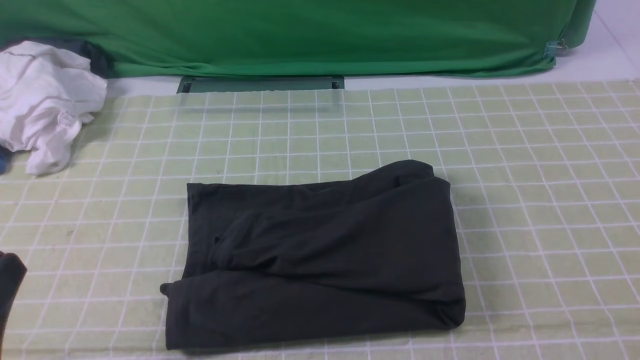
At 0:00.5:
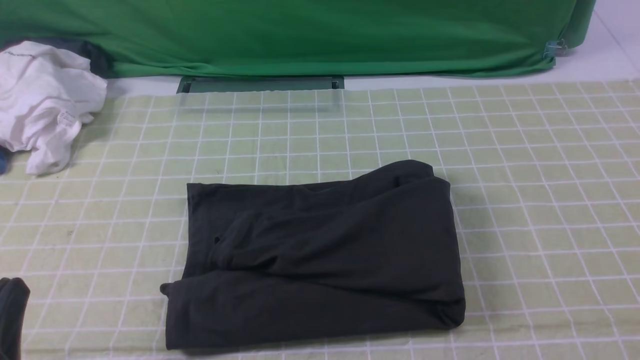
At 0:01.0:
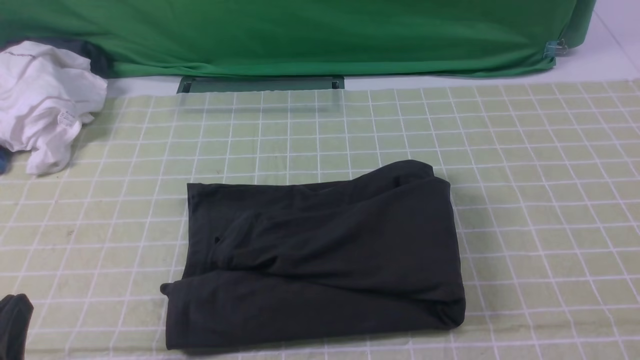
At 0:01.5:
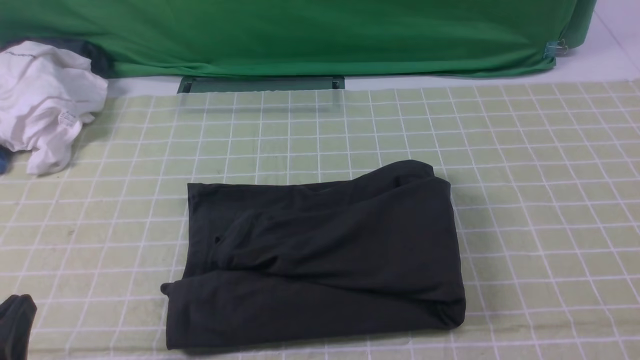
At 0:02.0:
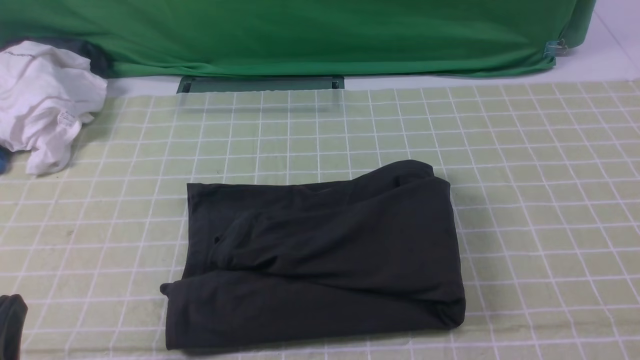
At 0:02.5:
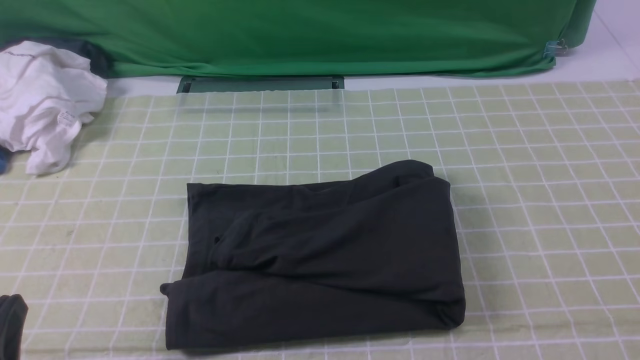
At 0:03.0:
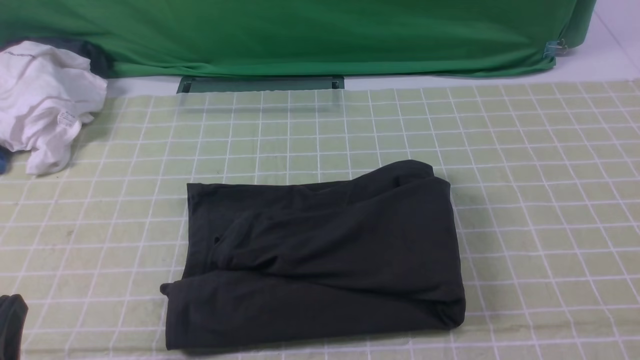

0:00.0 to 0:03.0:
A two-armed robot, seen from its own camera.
0:00.0 to 0:01.5: The left gripper travels downward by approximately 5 cm.
0:01.5 to 0:03.0: Neither gripper changes place.

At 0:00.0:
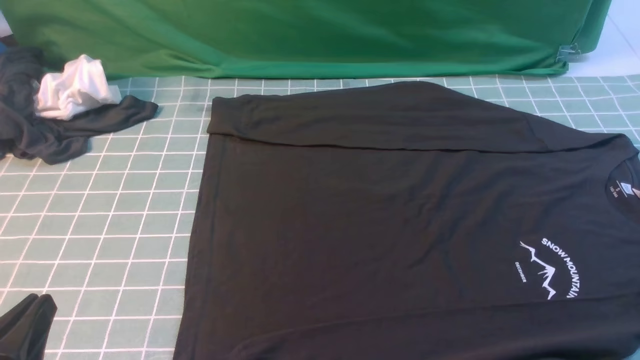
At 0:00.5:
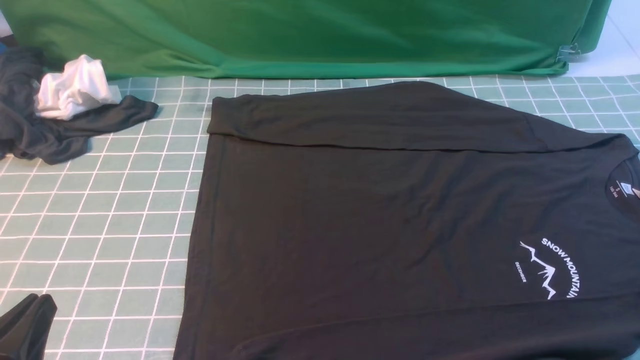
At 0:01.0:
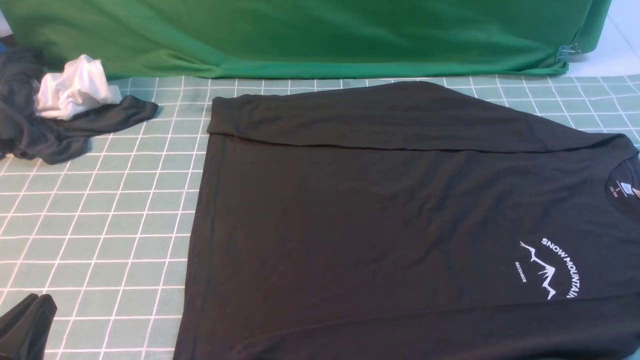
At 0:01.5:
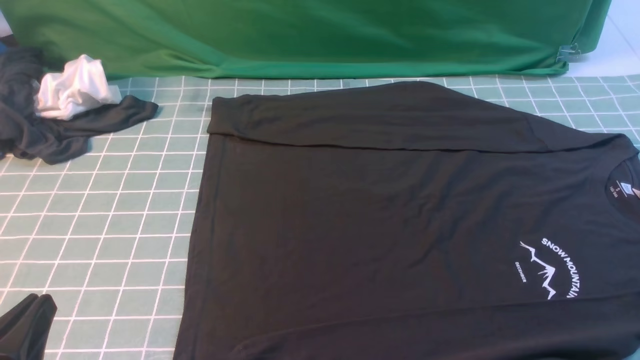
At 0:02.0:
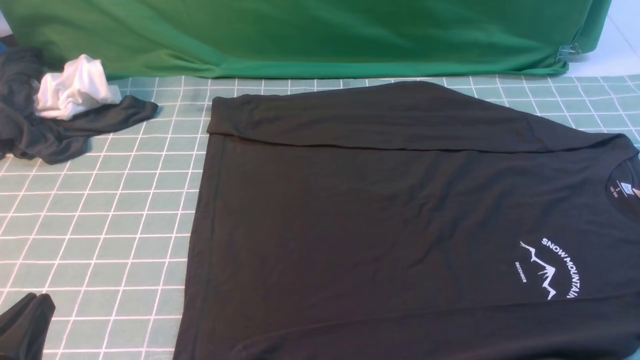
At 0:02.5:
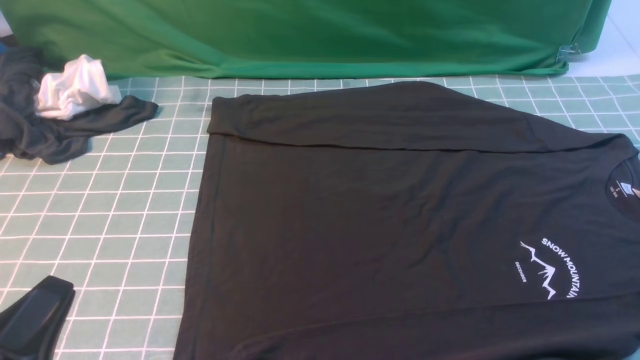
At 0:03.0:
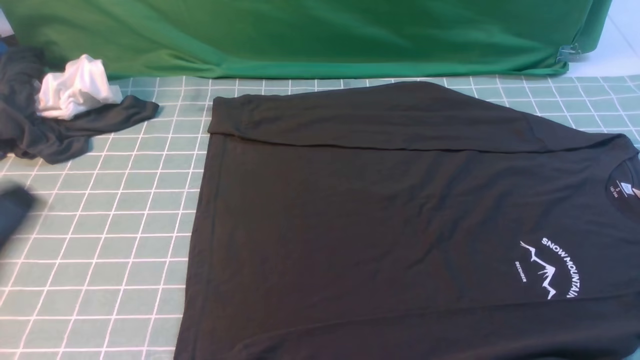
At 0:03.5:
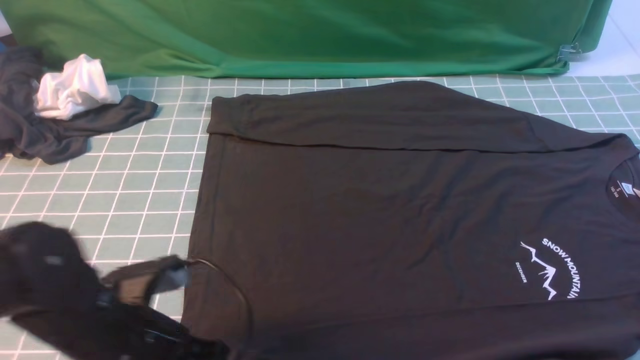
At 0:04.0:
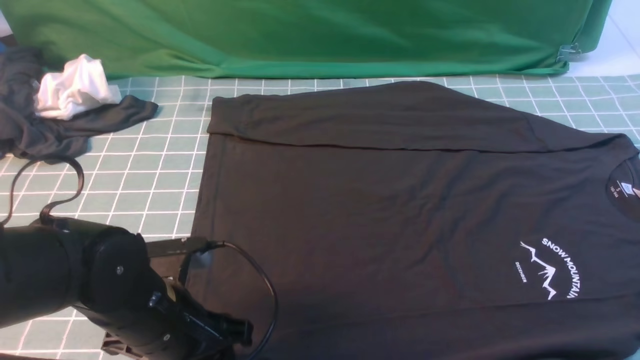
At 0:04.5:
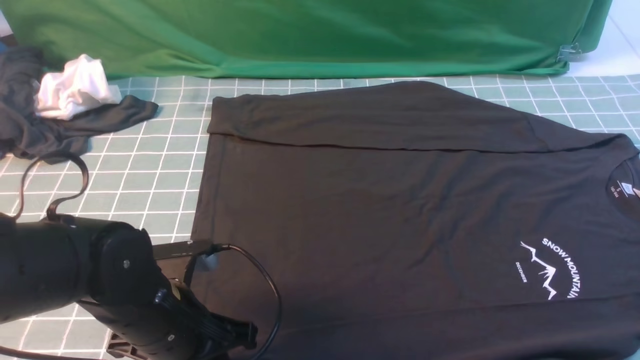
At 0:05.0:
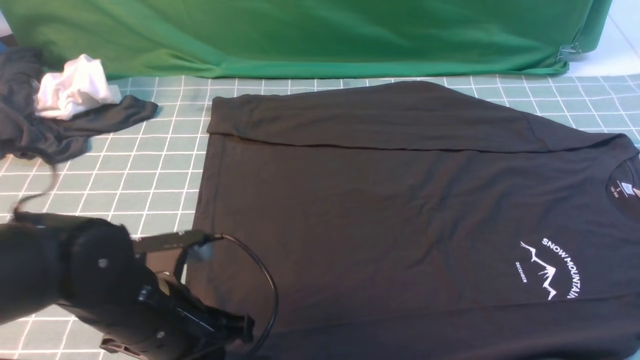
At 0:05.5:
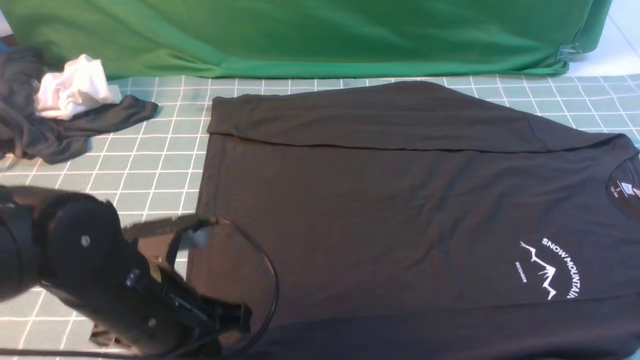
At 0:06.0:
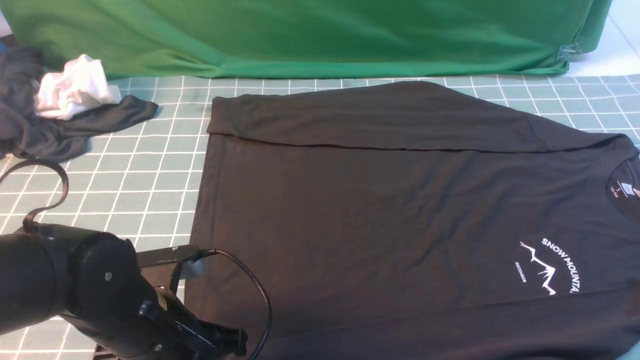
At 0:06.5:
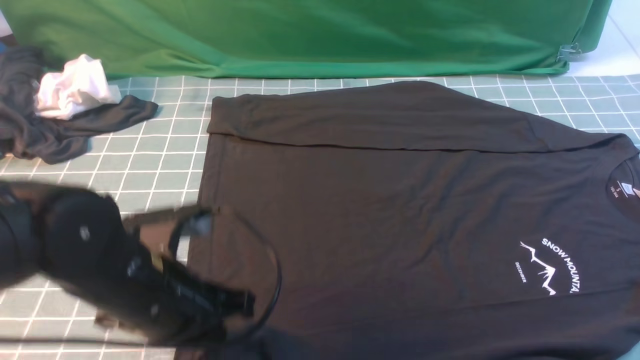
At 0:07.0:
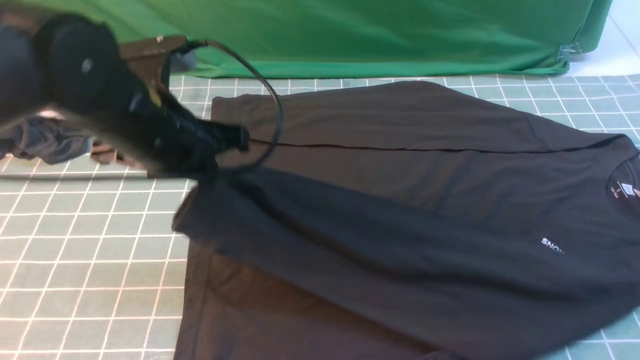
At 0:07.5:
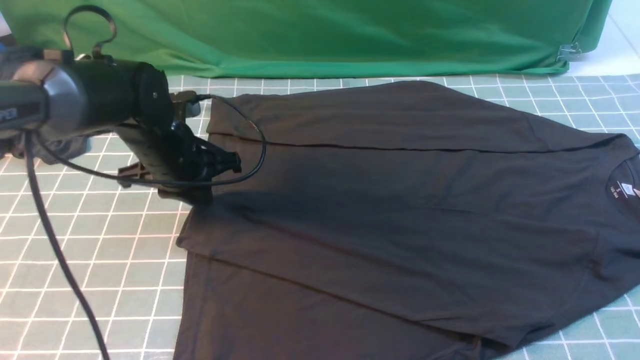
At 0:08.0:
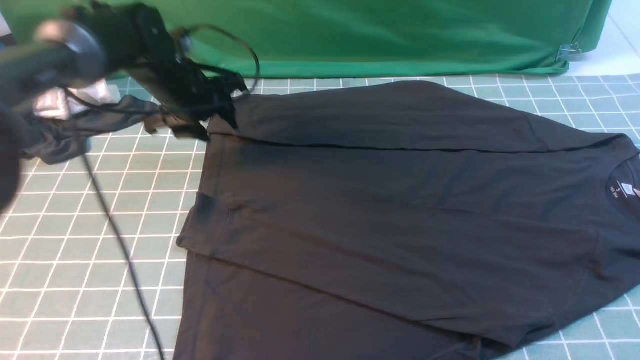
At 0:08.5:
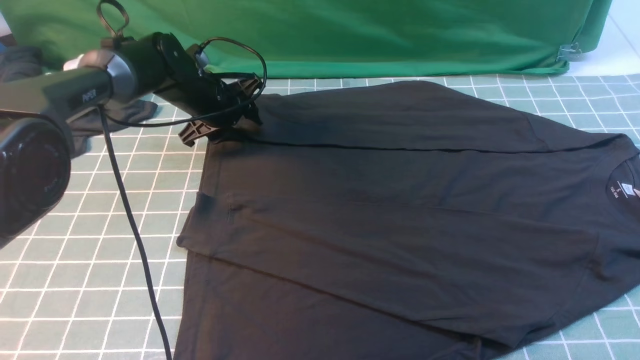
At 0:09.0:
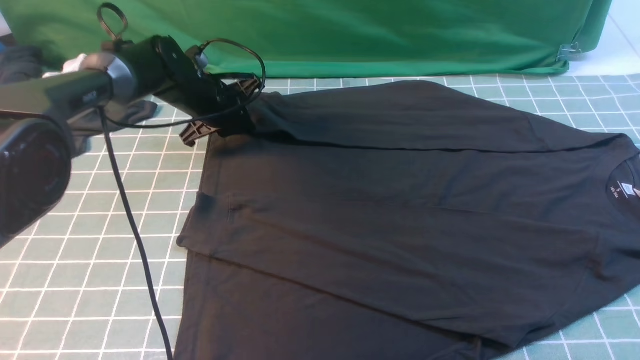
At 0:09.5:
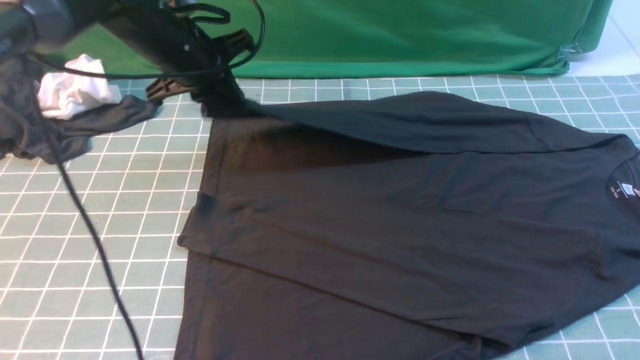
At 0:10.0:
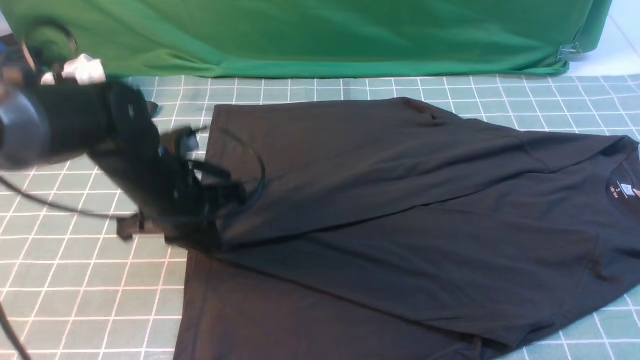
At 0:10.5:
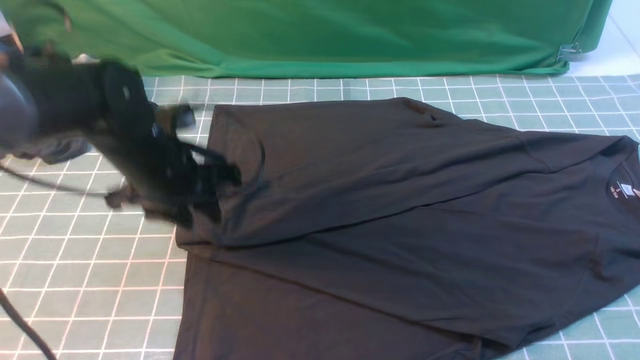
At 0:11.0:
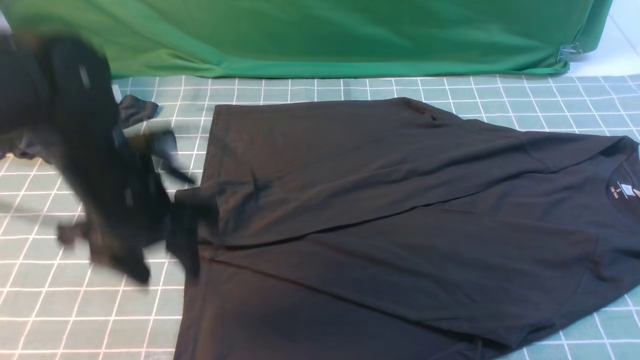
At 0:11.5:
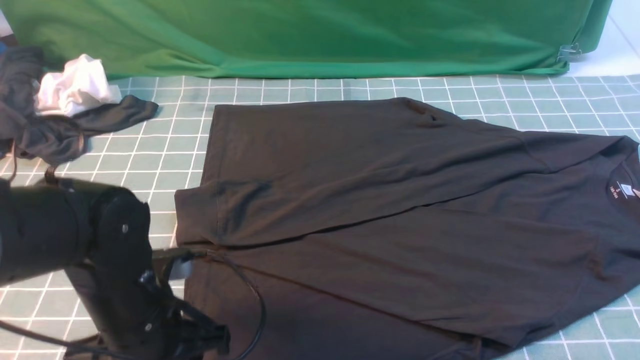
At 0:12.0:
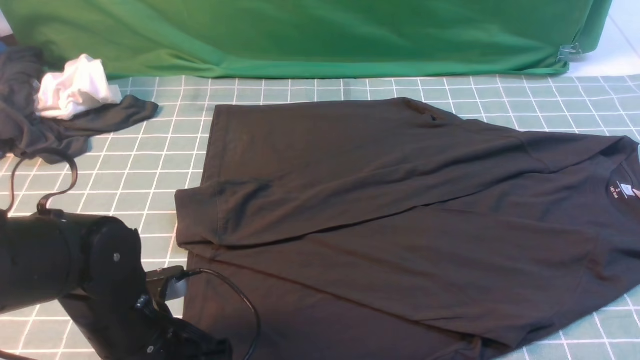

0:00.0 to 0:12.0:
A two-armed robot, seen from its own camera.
Step, 0:00.0 to 0:06.0: use the left arm to clamp the cuff closest to it.
Step, 0:06.5 to 0:07.5: use the left arm to drag and place the cuff at the centered position on the left edge of the fabric.
Step, 0:08.0 to 0:09.0: use the left arm to clamp the cuff farthest from it.
Step, 0:09.5 to 0:10.5: use the left arm to drag and drop the cuff onto the cuff closest to the left arm.
0:02.0 to 0:04.0: The left gripper goes approximately 15 cm forward and to the right, travels upward and back again, approximately 10 cm each way, and opens. The right gripper is displaced upward and forward by approximately 15 cm.
0:04.0 to 0:06.0: The left gripper closes up.
0:06.0 to 0:08.0: The left gripper goes approximately 30 cm forward, and opens up.
0:08.0 to 0:10.0: The left gripper is displaced backward by approximately 15 cm, and closes up.
0:10.0 to 0:12.0: The left gripper goes about 15 cm backward, and opens.

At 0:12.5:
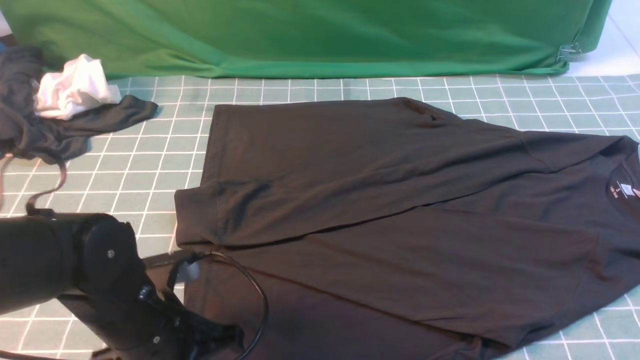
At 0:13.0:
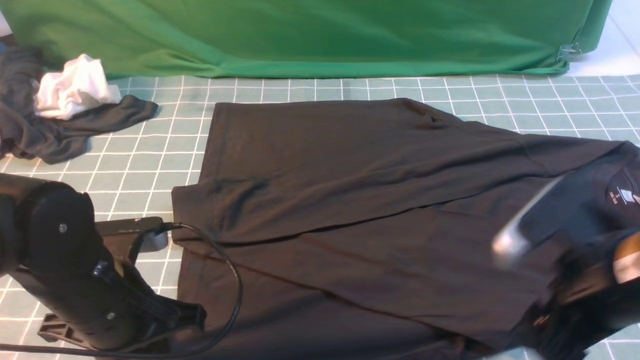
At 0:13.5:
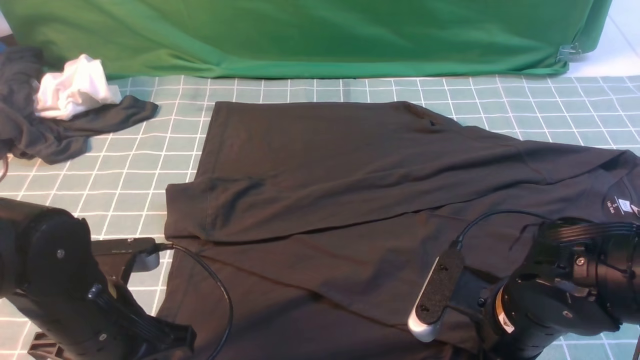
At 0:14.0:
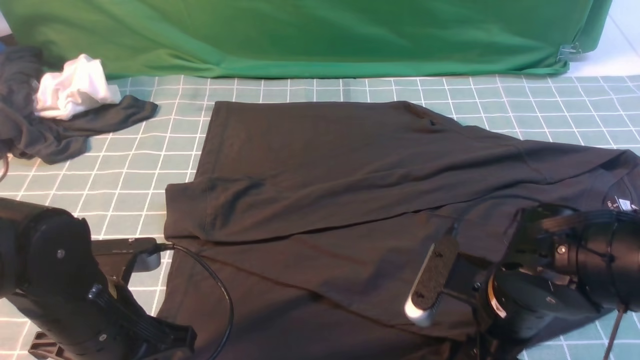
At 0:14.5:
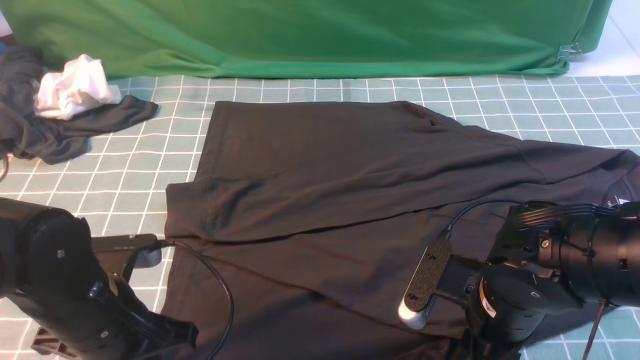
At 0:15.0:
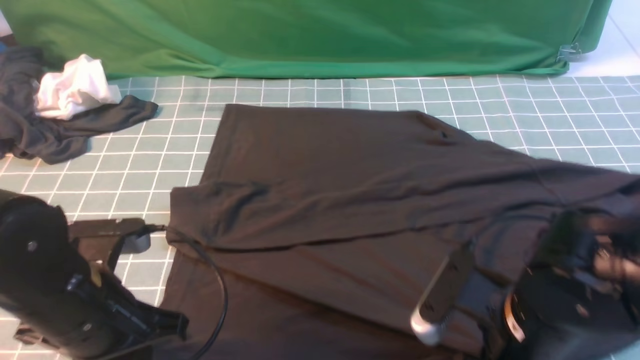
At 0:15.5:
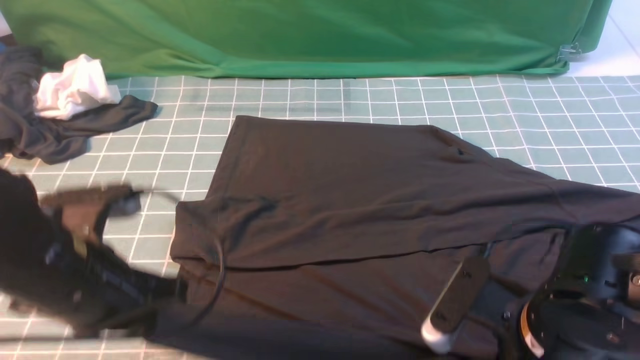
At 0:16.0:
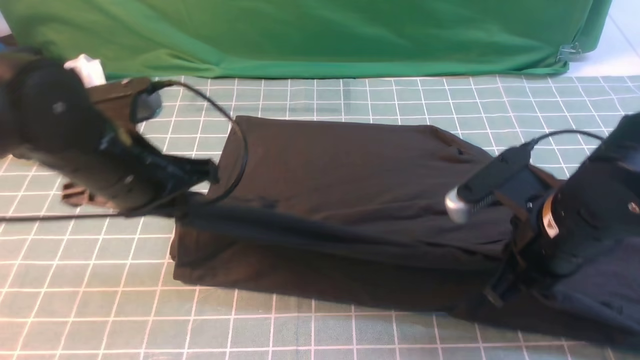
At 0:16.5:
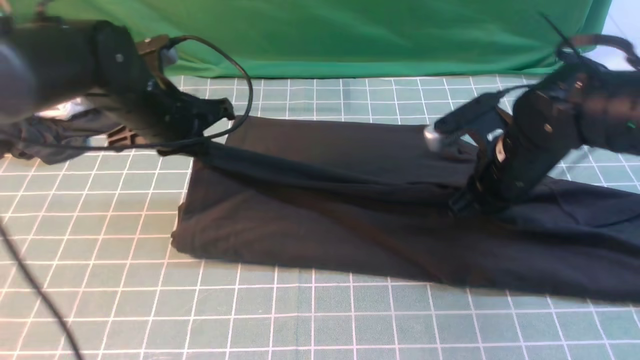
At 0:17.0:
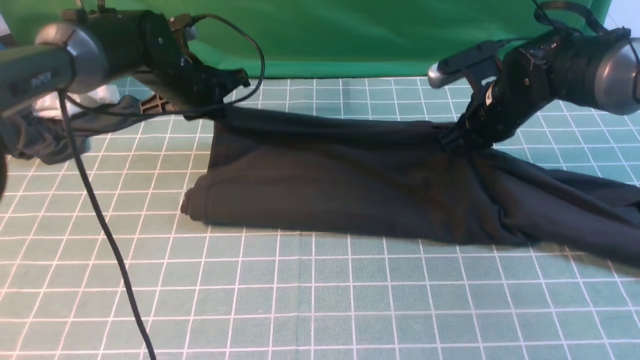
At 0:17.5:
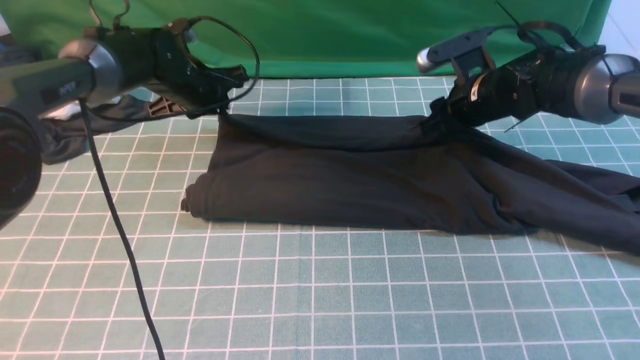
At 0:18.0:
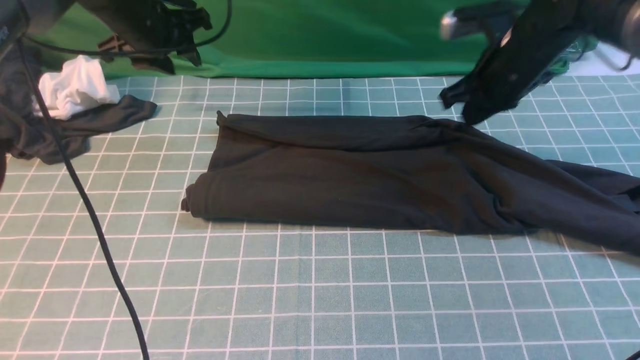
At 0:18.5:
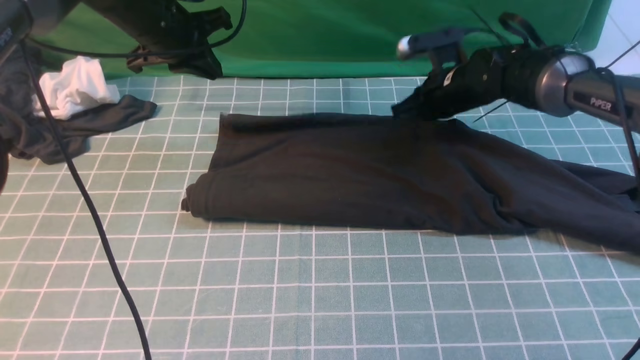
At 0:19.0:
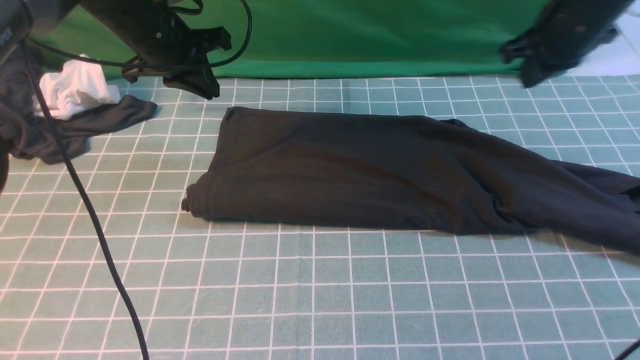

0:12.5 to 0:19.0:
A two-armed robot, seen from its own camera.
Step, 0:12.5 to 0:14.5: use both arms simultaneously to clamp the lower edge of the clothing fabric.
Step, 0:15.0 to 0:17.5: use both arms to drag the lower edge of the fabric forward and fold it over the upper edge.
0:12.5 to 0:14.5: The right gripper heads downward and to the left, covering roughly 20 cm, and opens, then closes again.
0:14.5 to 0:17.0: Both grippers move forward, some 25 cm. The right gripper closes.
0:17.0 to 0:19.0: The right gripper heads upward and to the right, covering about 15 cm, and opens, then closes again; the left gripper moves upward, some 5 cm, and opens and closes again.
